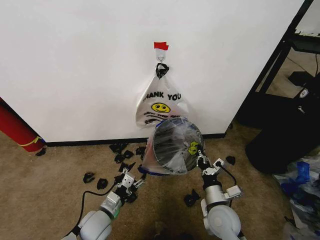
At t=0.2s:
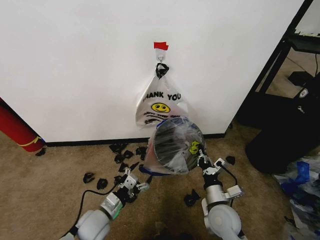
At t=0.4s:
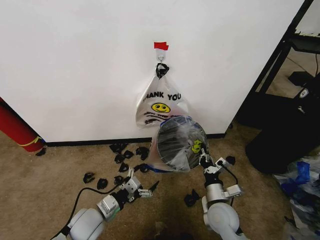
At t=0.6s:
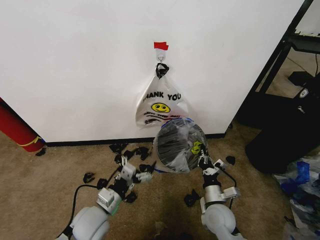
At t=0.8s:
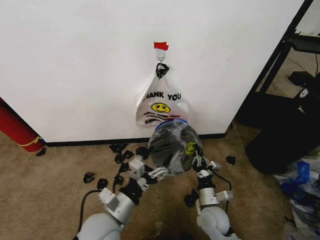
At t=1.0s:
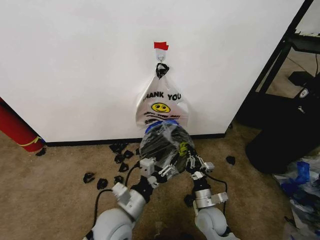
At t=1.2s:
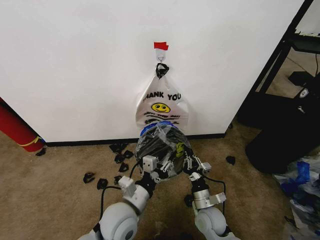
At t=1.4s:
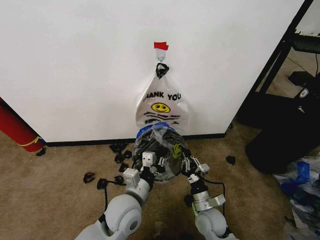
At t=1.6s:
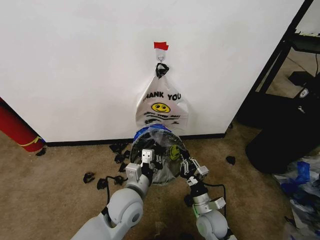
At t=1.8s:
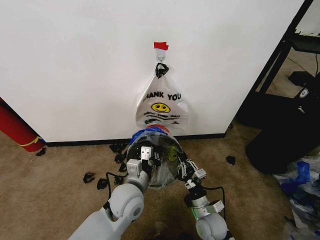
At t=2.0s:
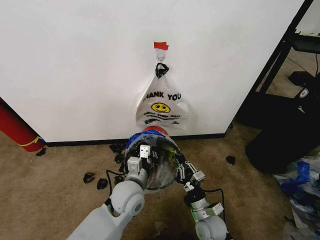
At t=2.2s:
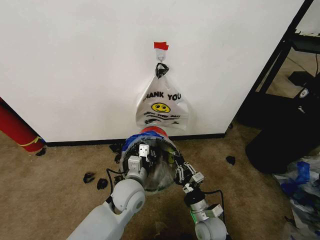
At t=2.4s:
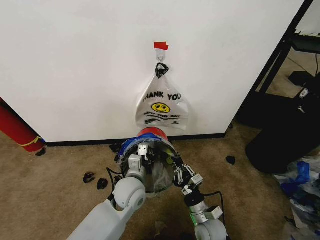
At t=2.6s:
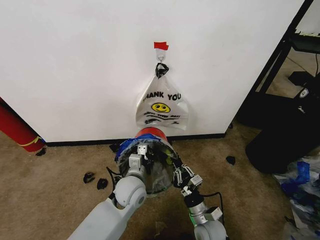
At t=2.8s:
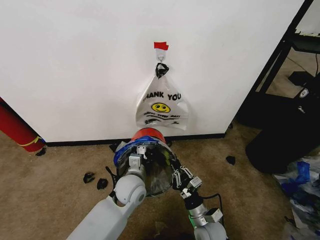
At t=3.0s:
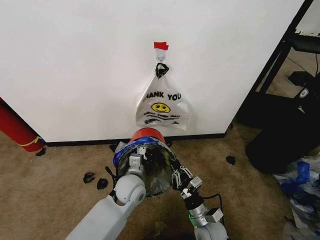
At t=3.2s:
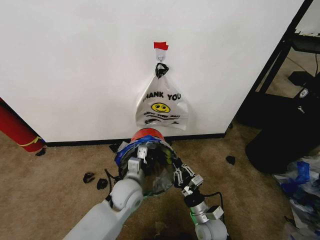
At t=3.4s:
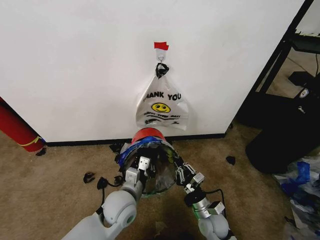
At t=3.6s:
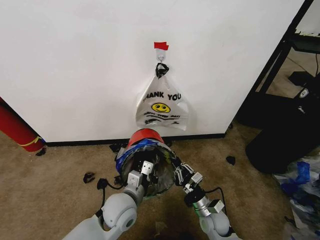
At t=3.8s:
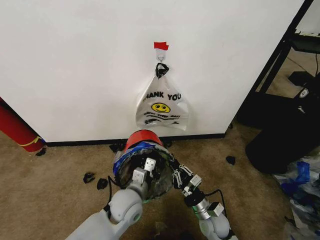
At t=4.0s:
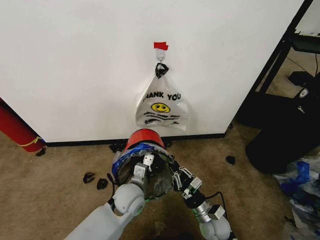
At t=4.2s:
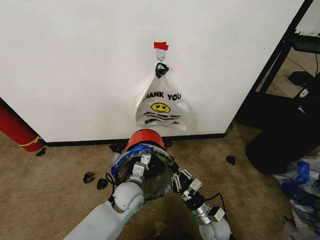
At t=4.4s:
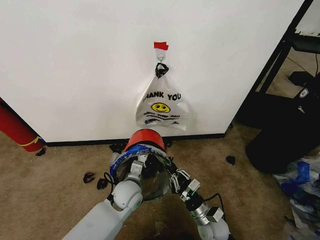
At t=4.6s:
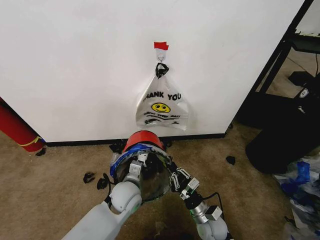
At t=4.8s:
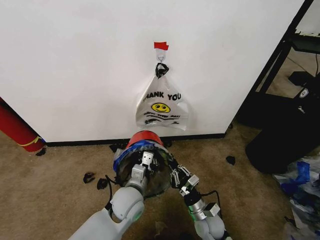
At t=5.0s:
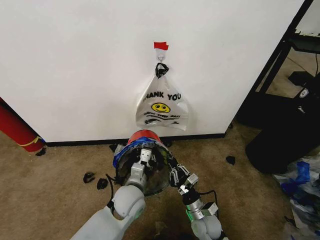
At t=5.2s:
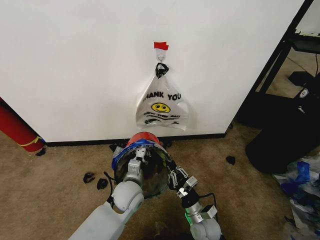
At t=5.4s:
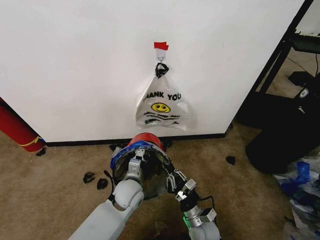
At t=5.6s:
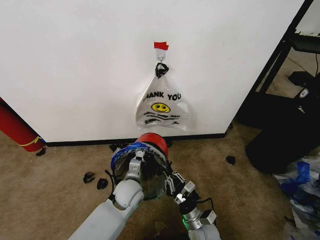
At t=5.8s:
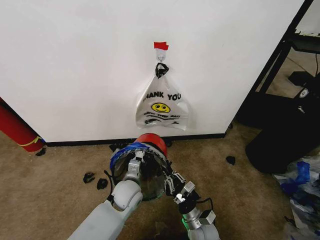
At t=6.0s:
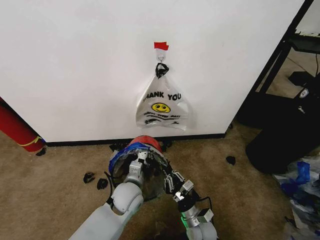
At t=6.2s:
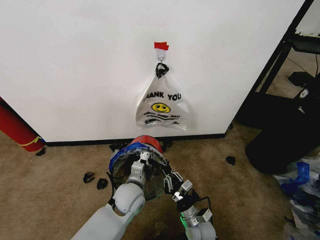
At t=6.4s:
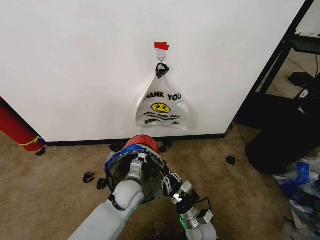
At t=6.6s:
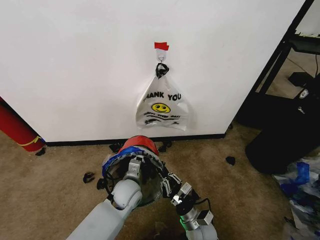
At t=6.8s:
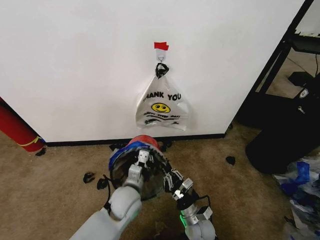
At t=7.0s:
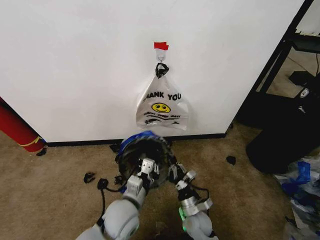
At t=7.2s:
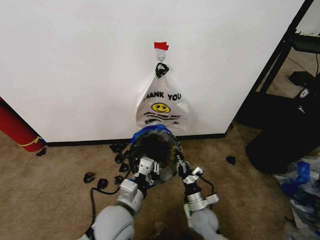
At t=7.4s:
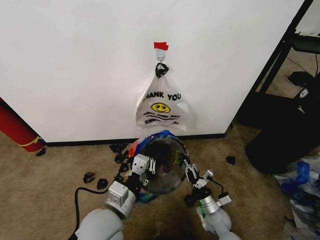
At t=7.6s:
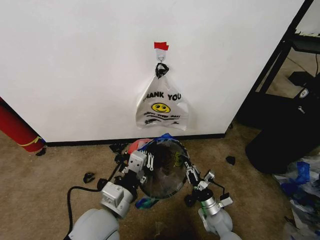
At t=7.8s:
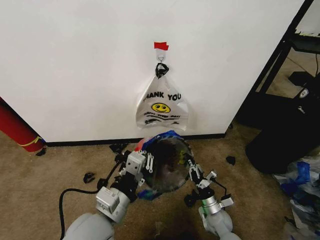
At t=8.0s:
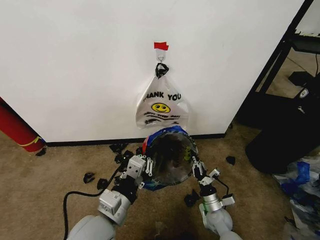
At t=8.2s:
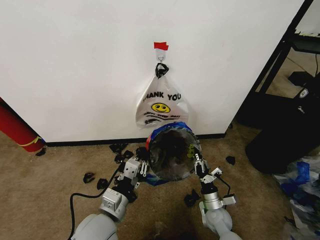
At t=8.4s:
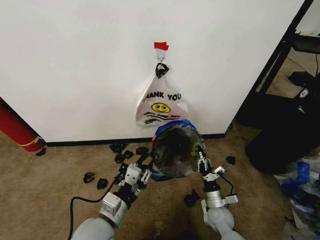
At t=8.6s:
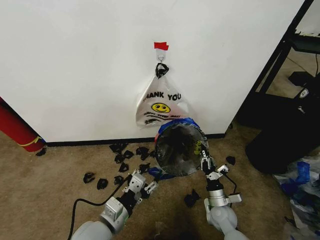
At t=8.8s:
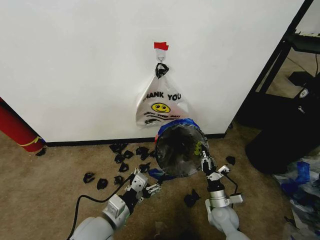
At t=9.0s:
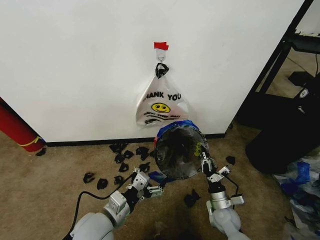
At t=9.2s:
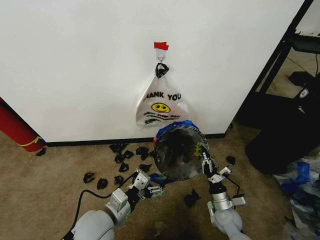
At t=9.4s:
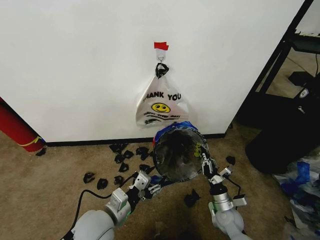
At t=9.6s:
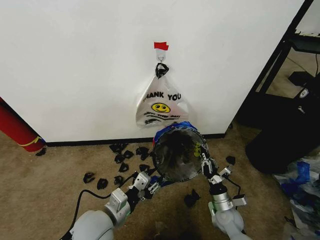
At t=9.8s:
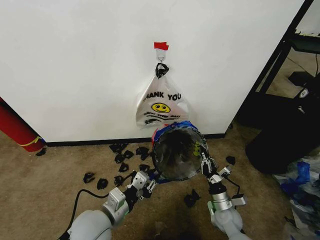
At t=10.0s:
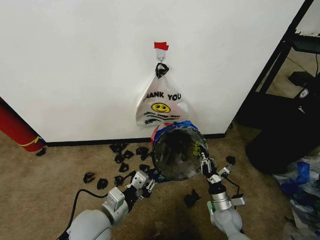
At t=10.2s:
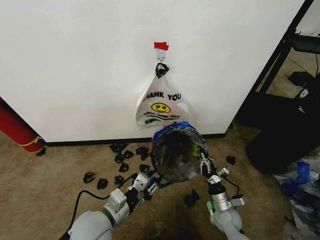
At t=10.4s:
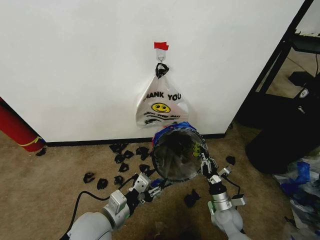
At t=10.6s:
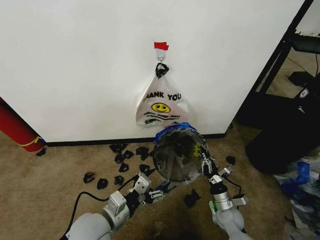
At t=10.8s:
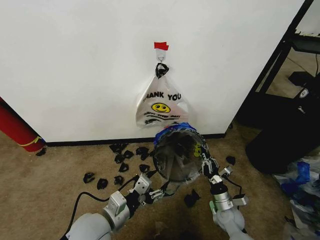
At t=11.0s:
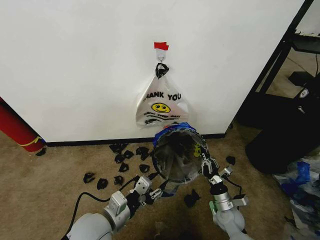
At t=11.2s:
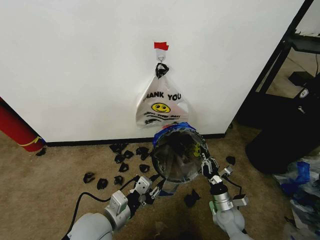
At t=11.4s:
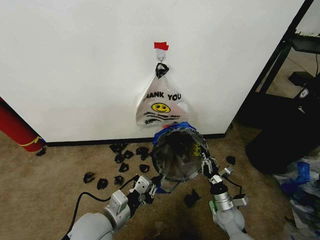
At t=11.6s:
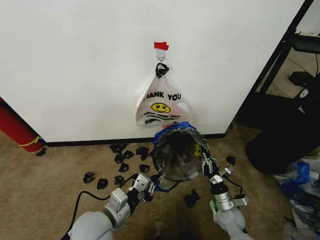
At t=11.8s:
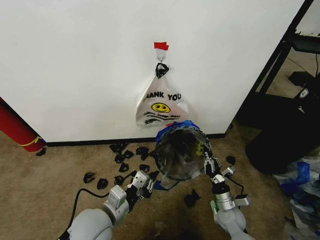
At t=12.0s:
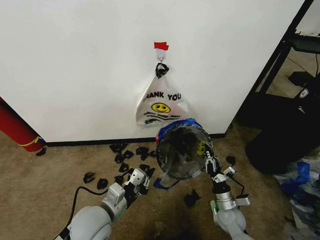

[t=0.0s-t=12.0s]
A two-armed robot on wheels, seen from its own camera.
Task of the whole recording: Pick up the garbage bag from the wall and place it over the trash bin.
t=0.0s to t=1.6s: The left gripper heads upward and to the right, covering about 15 cm, and closes. Meanwhile the right gripper is displaced downward by approximately 5 cm.
t=1.6s to t=3.0s: The left gripper travels forward by roughly 5 cm.
t=4.4s to t=6.0s: The grippers stay close to where they were, moving slightly.
t=6.0s to t=7.6s: The left gripper moves upward and backward, roughly 20 cm, while the right gripper heads to the right, covering approximately 10 cm.
t=7.6s to t=9.0s: The left gripper is displaced downward by roughly 5 cm, and opens its fingers.
t=9.0s to t=10.4s: The left gripper closes.
t=10.4s to t=12.0s: The left gripper closes up.

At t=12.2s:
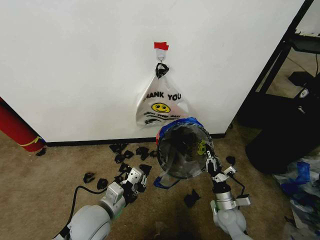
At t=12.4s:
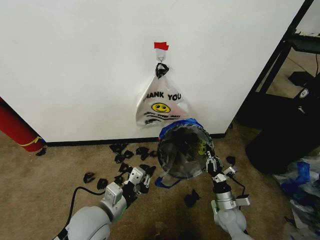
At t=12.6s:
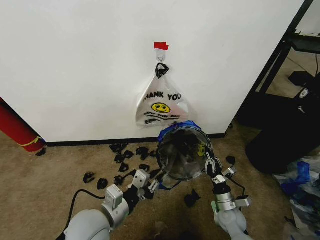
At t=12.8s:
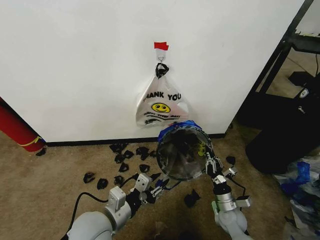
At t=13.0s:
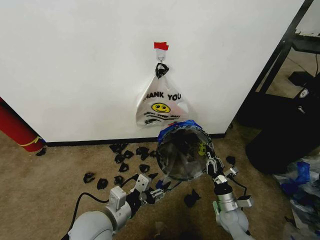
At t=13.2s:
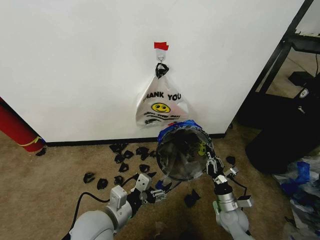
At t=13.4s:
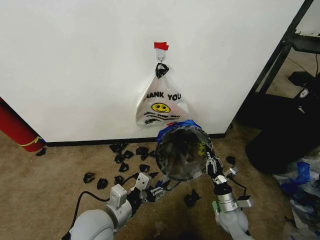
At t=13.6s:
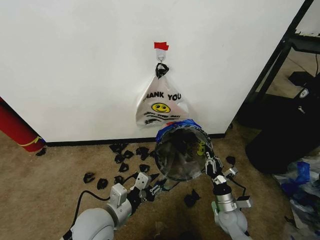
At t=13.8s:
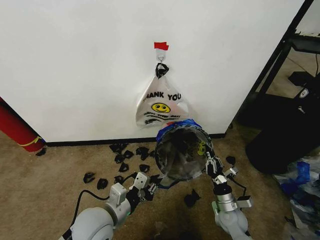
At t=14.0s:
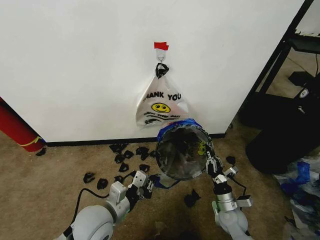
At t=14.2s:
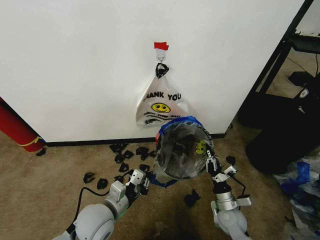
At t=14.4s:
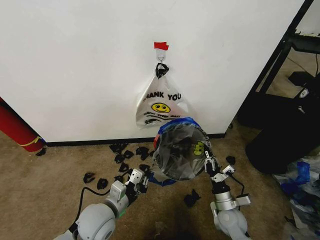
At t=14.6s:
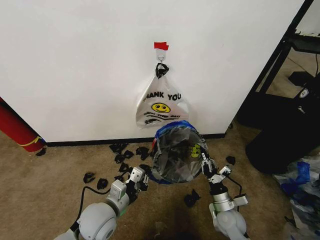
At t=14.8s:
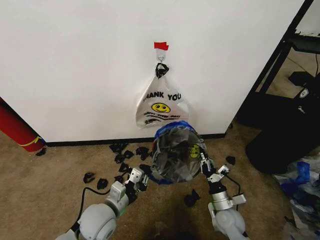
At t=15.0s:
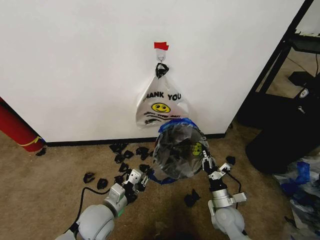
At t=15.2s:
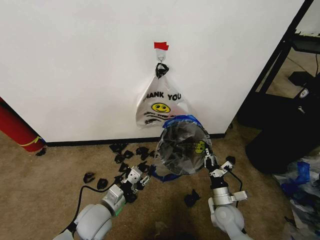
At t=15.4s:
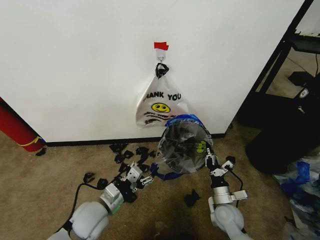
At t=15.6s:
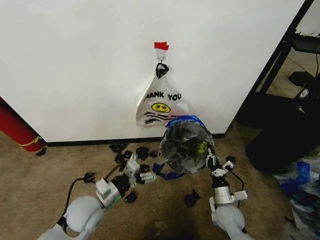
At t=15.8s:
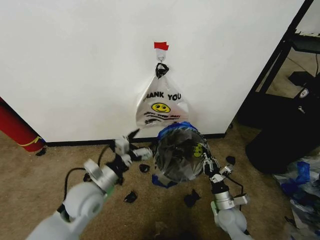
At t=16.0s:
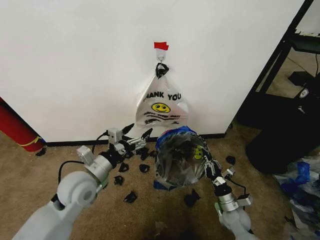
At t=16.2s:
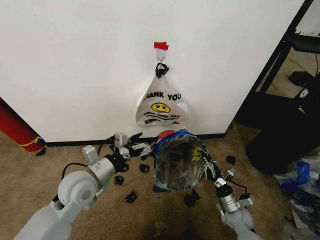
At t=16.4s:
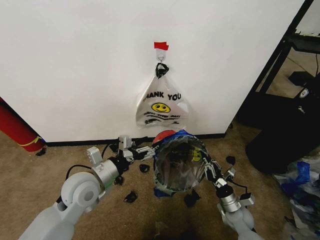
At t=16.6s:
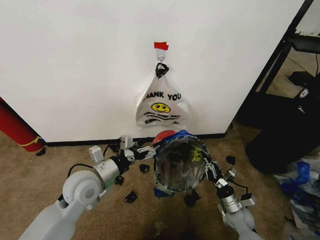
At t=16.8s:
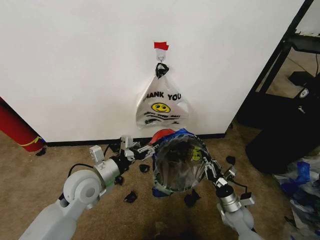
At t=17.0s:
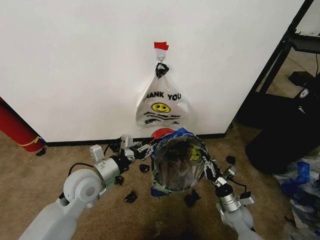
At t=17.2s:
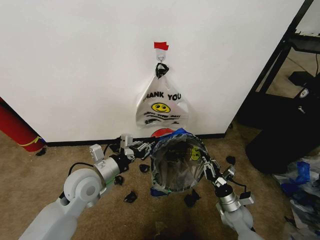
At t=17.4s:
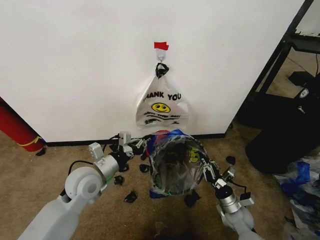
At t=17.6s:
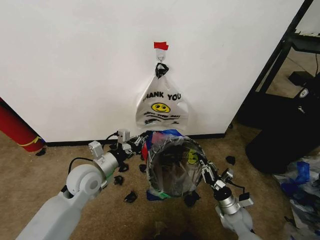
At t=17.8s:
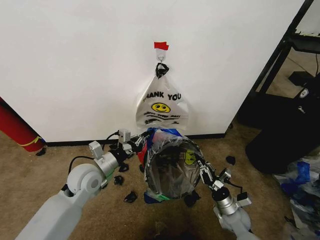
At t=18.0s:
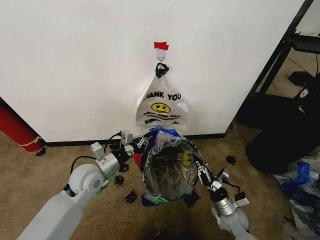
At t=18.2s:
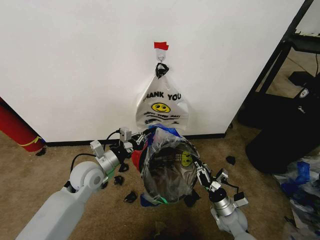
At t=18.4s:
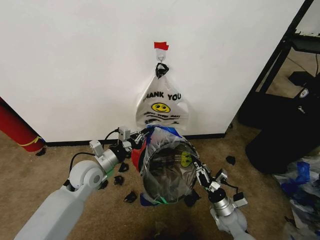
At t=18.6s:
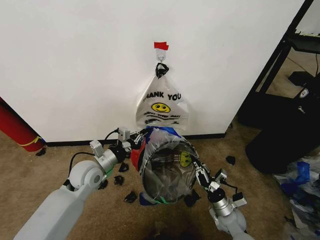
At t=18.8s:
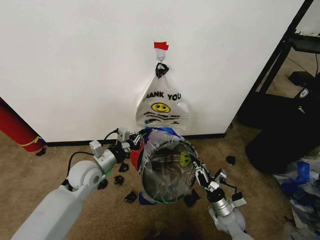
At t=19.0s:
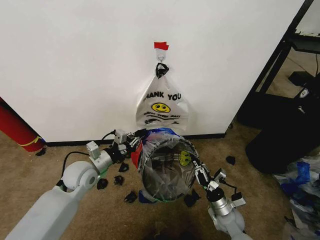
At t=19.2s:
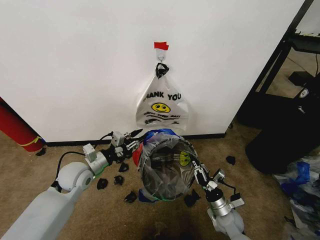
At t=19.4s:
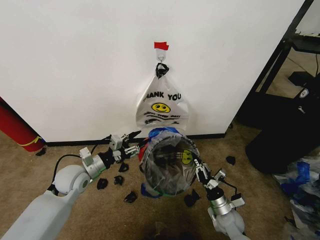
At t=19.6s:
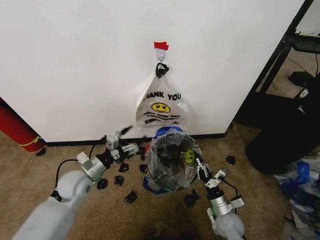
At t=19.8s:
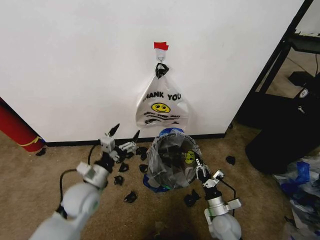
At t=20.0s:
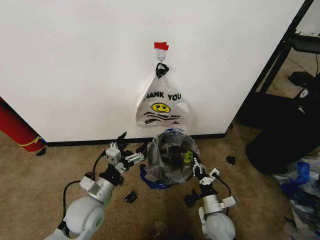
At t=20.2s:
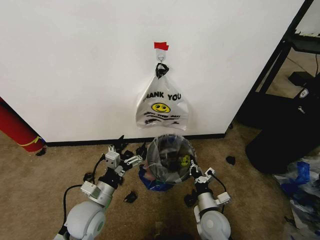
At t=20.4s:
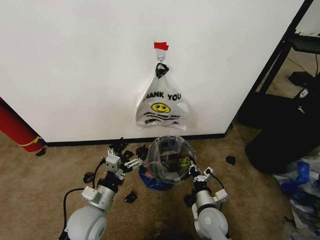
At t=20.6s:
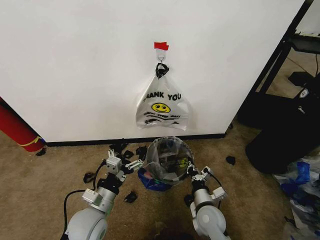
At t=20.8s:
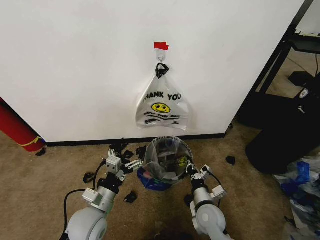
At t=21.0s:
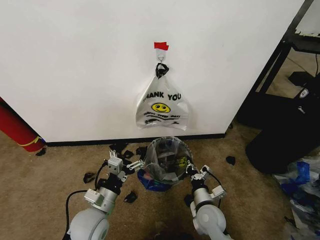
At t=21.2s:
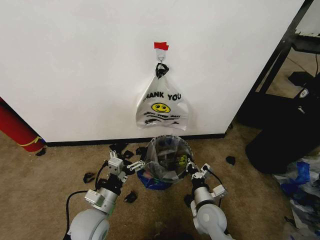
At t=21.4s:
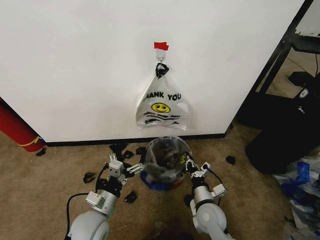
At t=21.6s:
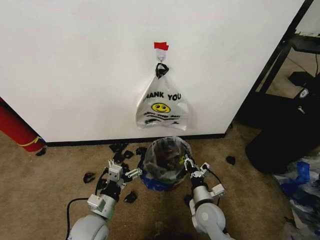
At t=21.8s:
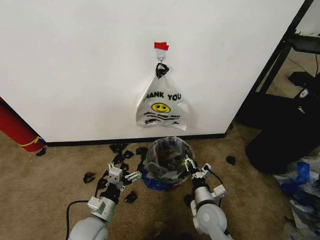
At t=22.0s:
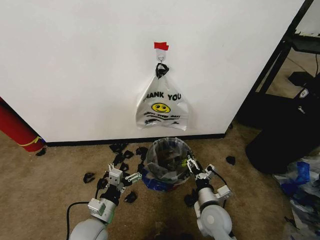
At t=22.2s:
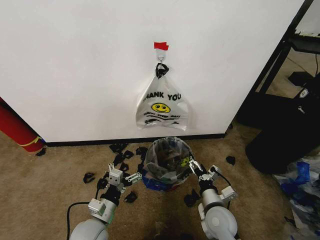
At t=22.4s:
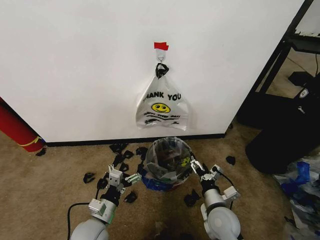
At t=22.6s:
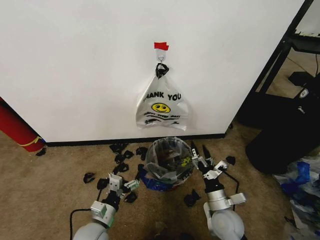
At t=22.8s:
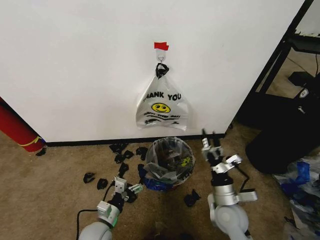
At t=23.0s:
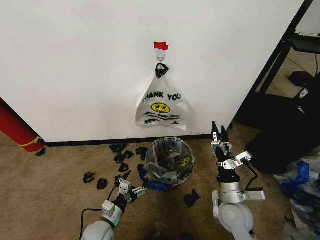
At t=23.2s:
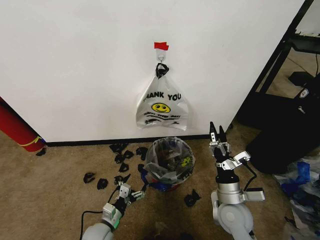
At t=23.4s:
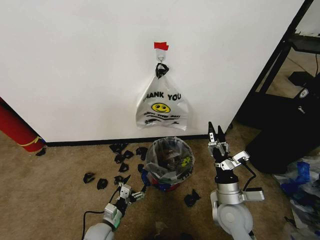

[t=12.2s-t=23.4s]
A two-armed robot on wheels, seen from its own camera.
Task of the whole recording: Pick up the garbage bag from the wall and place it over the trash bin.
t=12.2s to t=13.8s: The left gripper opens, then closes again.
t=13.8s to t=15.4s: The left gripper moves downward, roughly 5 cm, and opens its fingers.
t=15.4s to t=17.0s: The right gripper shifts about 5 cm to the right. The left gripper goes some 10 cm upward and forward.
t=17.0s to t=18.6s: The left gripper moves forward, roughly 5 cm, and closes its fingers.
t=18.6s to t=20.2s: The right gripper shifts about 5 cm to the left, while the left gripper goes roughly 10 cm backward, and opens.
t=20.2s to t=21.8s: The right gripper shifts by about 5 cm, and opens. The left gripper goes approximately 5 cm downward.
t=21.8s to t=23.4s: The left gripper heads downward, covering roughly 15 cm, while the right gripper moves upward, roughly 10 cm, and opens its fingers.
